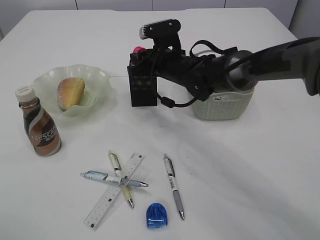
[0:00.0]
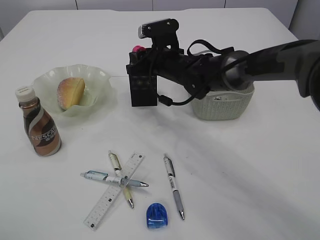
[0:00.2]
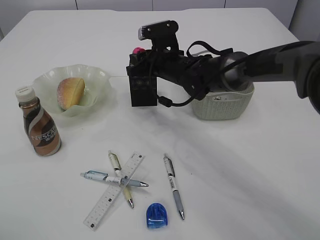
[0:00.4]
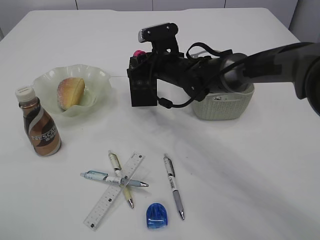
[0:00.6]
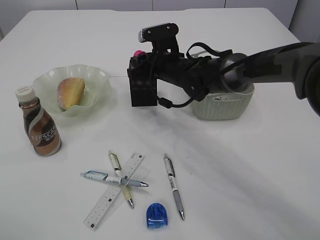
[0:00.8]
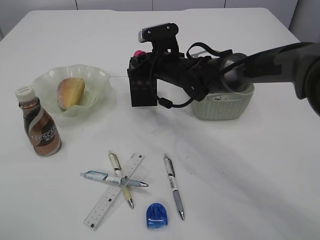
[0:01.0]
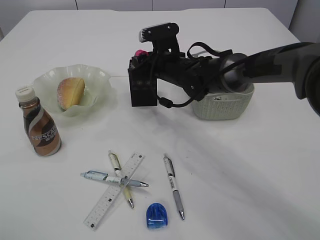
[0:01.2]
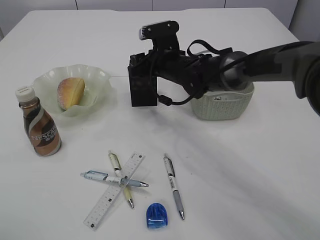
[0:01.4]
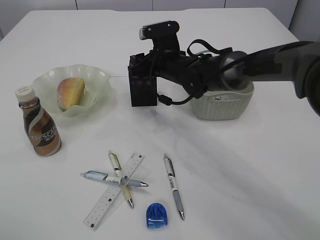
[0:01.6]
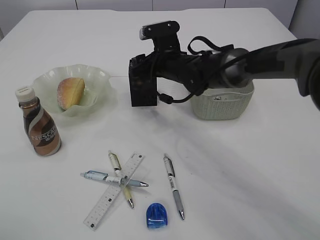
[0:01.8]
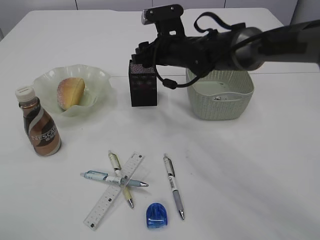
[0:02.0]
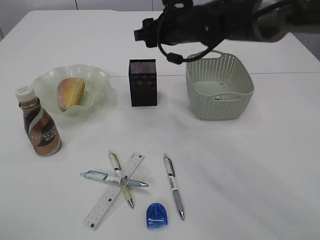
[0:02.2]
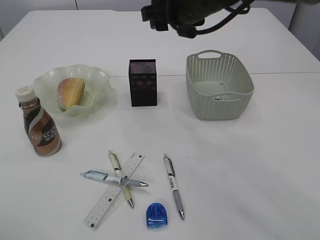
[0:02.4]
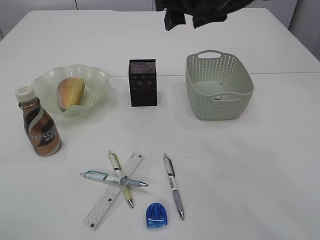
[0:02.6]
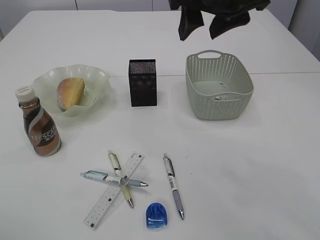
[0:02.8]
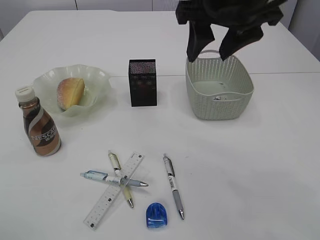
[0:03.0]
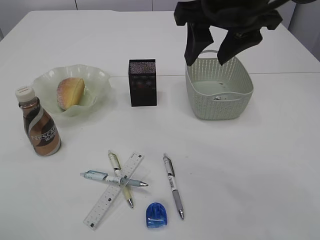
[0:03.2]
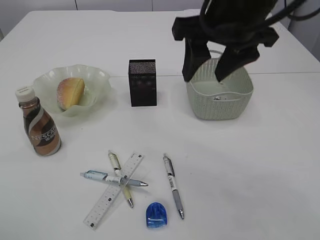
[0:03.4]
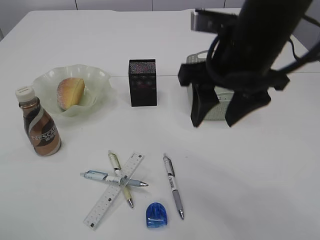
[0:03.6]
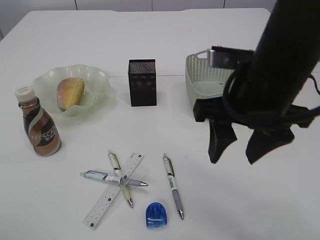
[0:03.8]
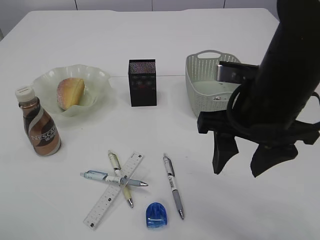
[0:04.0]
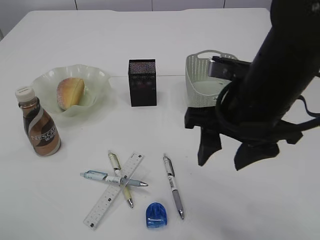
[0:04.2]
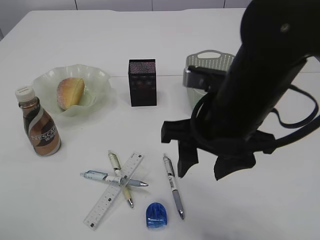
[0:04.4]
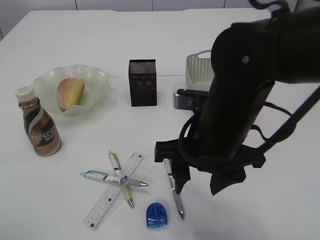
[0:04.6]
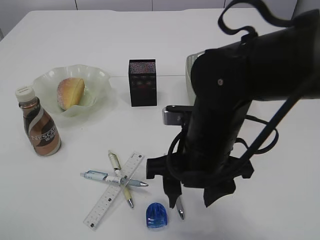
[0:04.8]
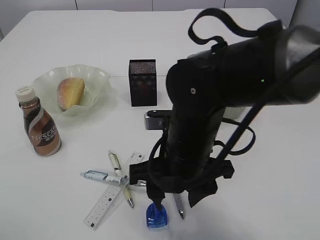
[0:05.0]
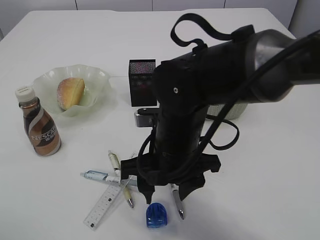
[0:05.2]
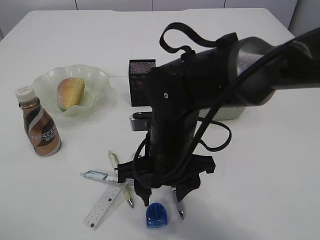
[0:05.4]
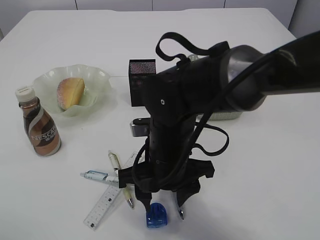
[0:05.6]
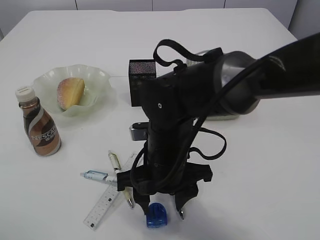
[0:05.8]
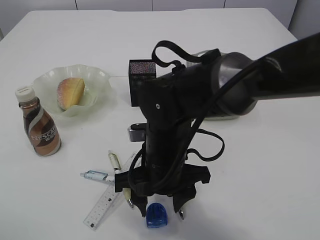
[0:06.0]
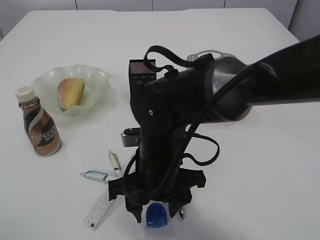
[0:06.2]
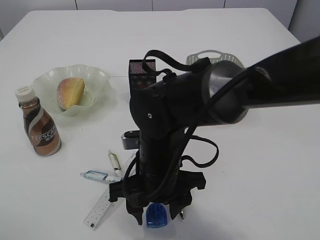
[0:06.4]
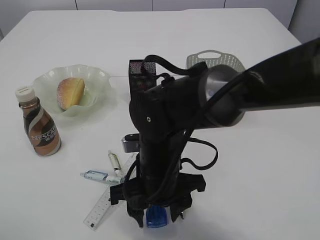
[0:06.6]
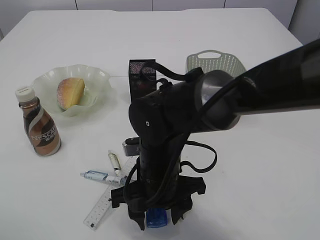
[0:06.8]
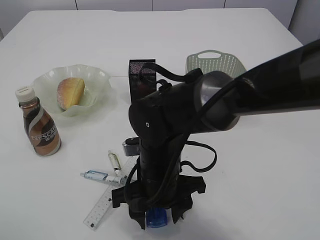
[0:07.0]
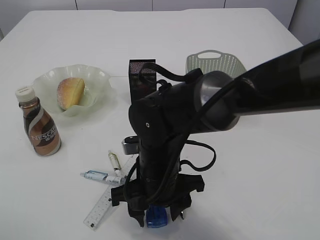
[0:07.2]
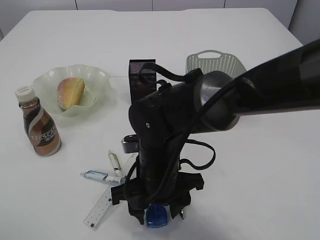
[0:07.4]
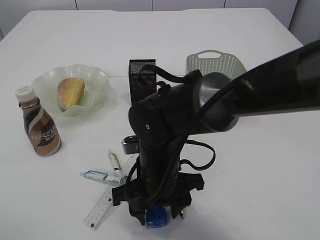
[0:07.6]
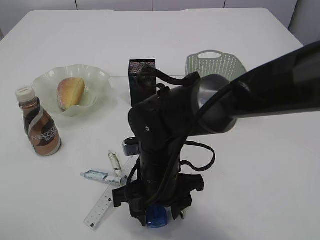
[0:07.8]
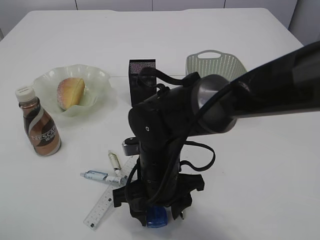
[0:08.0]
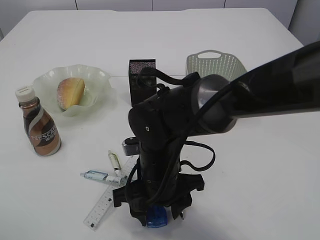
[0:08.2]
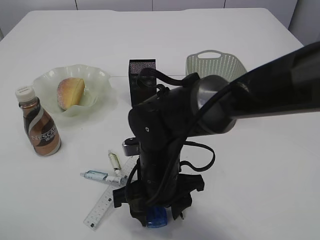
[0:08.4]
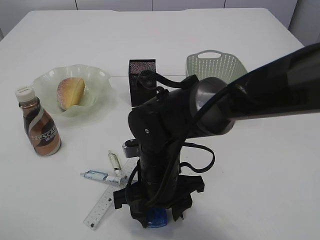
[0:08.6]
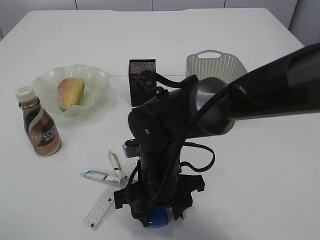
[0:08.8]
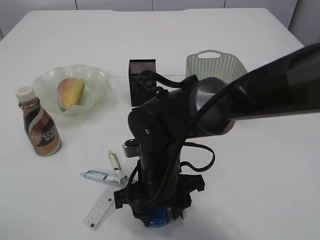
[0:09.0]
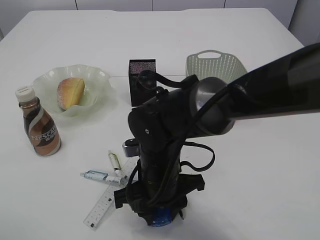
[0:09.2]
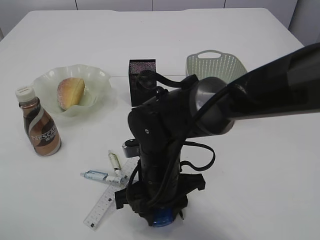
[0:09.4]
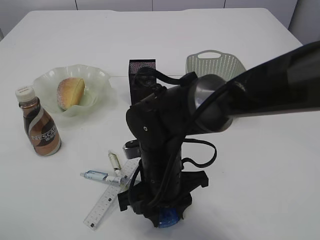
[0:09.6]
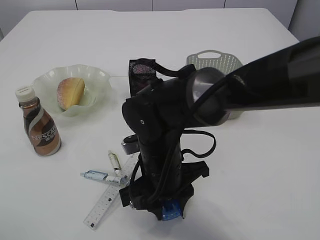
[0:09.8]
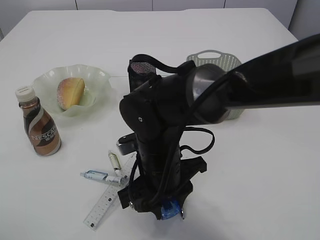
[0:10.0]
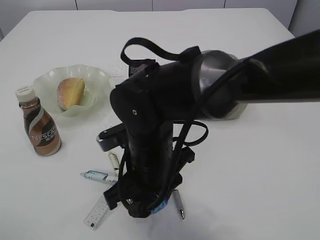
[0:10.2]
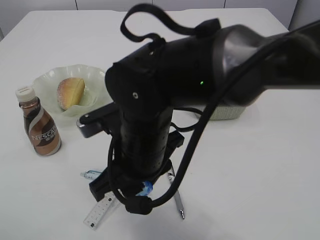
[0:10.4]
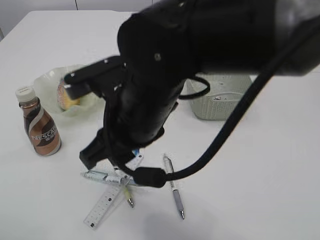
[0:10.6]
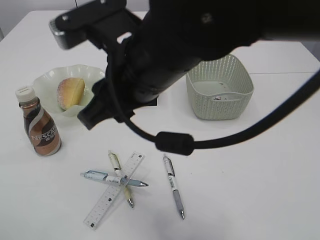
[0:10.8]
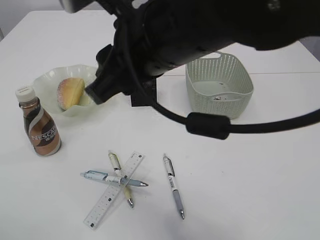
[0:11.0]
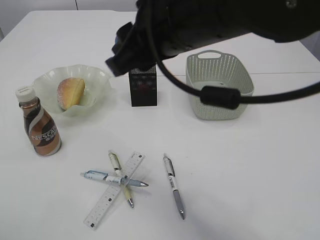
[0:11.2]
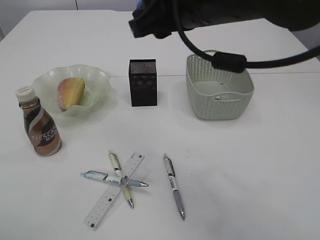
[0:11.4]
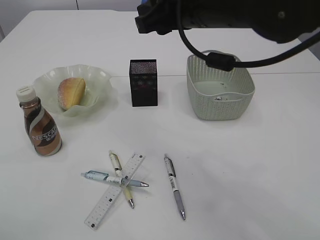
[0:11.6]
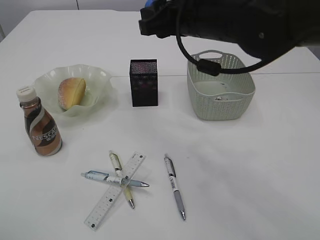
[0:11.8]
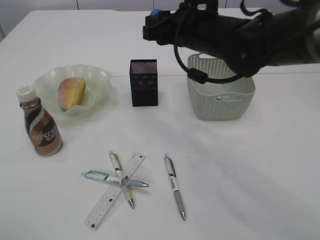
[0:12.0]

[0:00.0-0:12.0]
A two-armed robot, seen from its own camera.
Step, 0:00.0 to 0:02.2: Place the red pencil sharpener into the pen holder.
Step, 0:02.4 to 0:10.4: Pick up the blue pencil sharpener.
0:00.0 to 0:01.6: Both grippers stay about where they are.
0:01.6 to 0:03.0: The right gripper shifts approximately 25 cm upward and backward.
0:03.0 to 0:04.4: The right gripper goes approximately 15 cm downward and backward.
0:04.4 to 0:06.0: The right gripper travels downward and to the left by about 15 cm.
0:06.0 to 0:07.6: The grippers stay close to where they were, moving slightly.
0:07.6 to 0:09.0: Neither gripper changes place.
0:09.0 to 0:10.4: The right gripper moves upward, about 10 cm.
0:10.4 to 0:12.0: The right gripper shifts approximately 20 cm forward, to the right and upward.

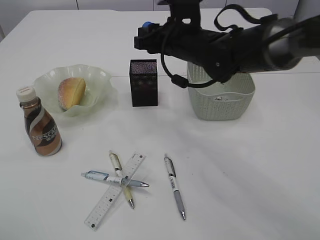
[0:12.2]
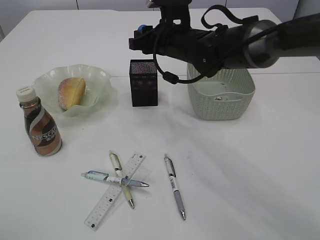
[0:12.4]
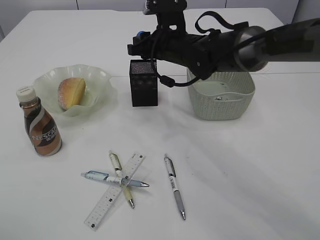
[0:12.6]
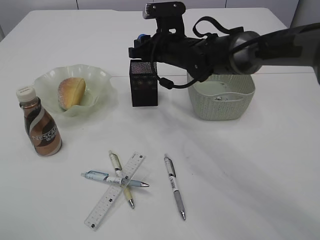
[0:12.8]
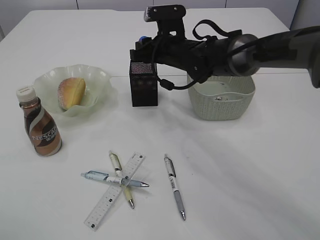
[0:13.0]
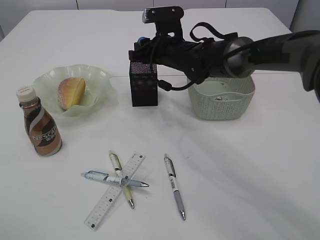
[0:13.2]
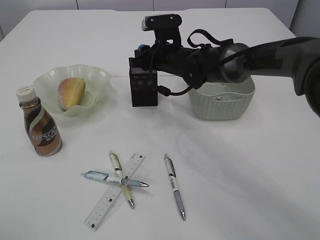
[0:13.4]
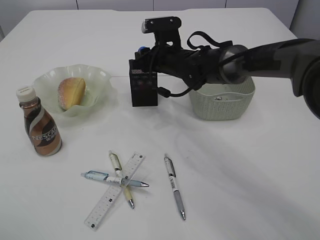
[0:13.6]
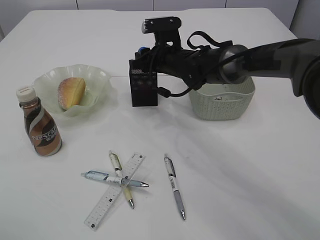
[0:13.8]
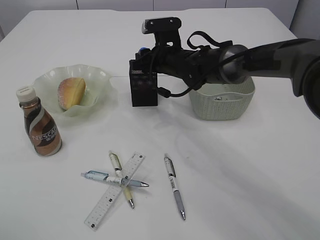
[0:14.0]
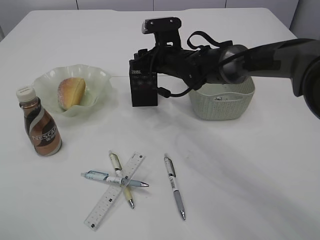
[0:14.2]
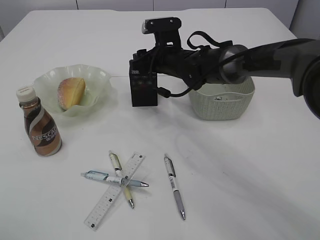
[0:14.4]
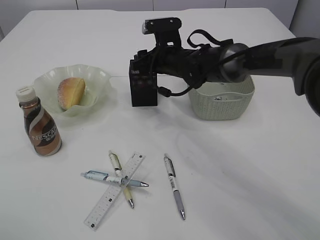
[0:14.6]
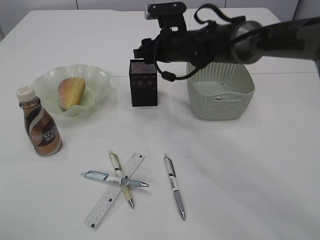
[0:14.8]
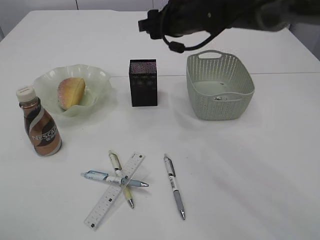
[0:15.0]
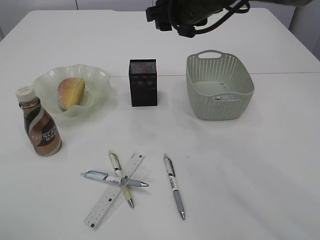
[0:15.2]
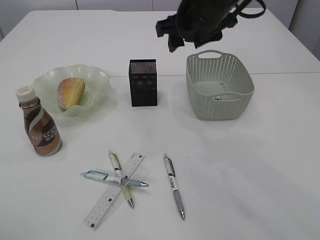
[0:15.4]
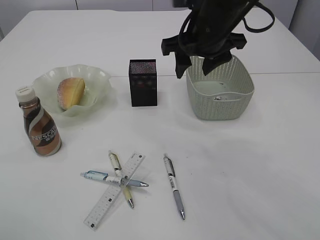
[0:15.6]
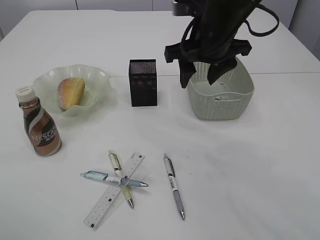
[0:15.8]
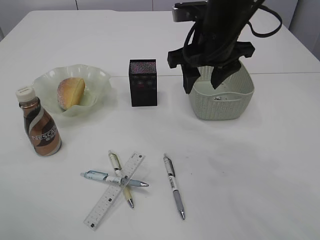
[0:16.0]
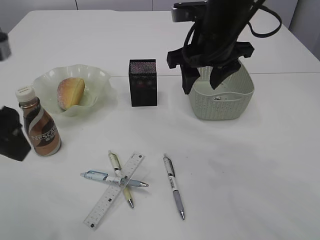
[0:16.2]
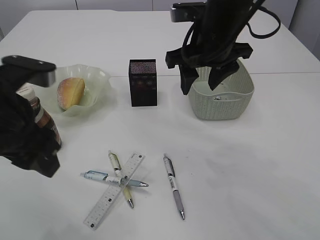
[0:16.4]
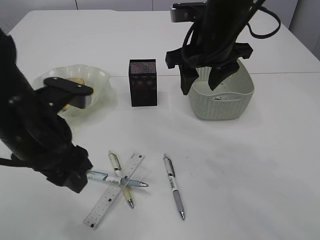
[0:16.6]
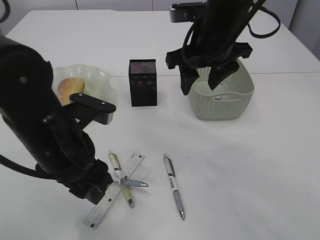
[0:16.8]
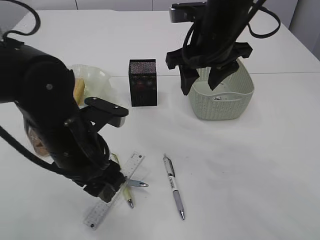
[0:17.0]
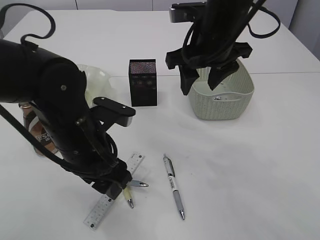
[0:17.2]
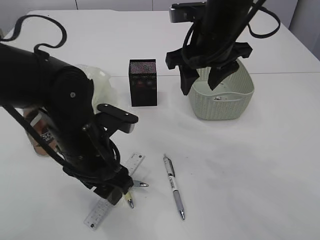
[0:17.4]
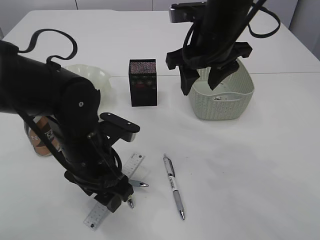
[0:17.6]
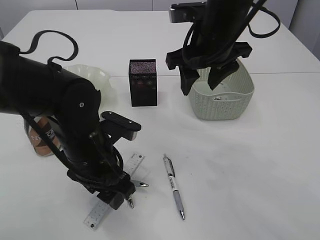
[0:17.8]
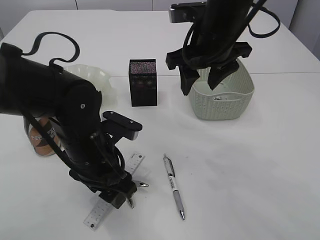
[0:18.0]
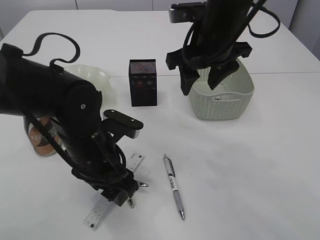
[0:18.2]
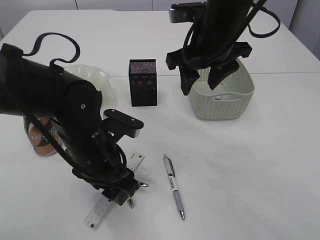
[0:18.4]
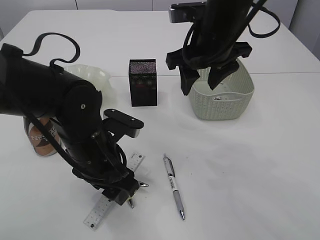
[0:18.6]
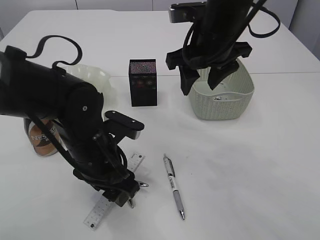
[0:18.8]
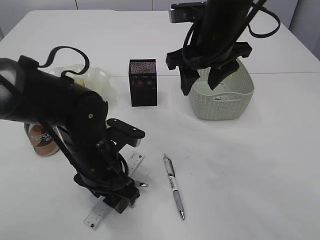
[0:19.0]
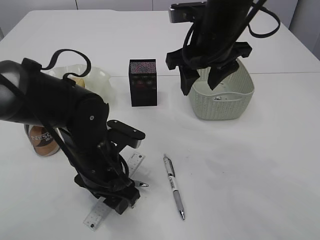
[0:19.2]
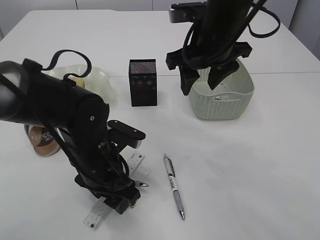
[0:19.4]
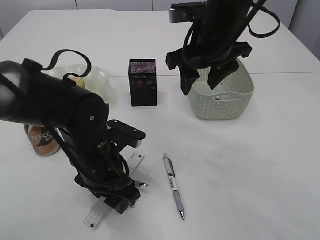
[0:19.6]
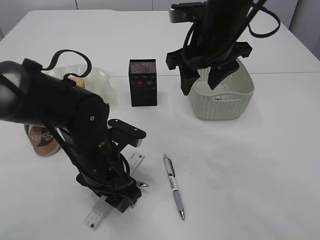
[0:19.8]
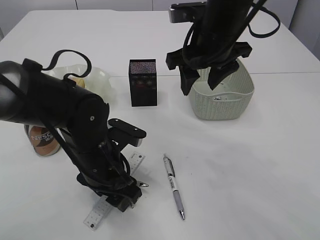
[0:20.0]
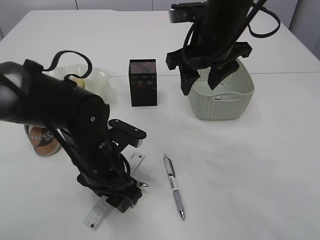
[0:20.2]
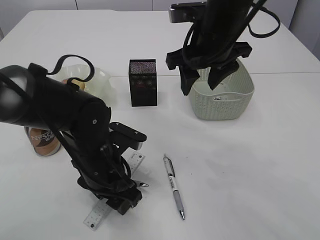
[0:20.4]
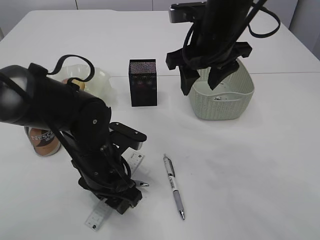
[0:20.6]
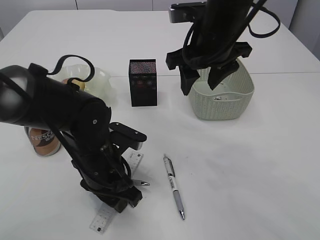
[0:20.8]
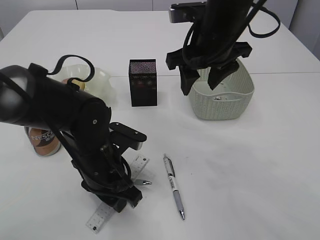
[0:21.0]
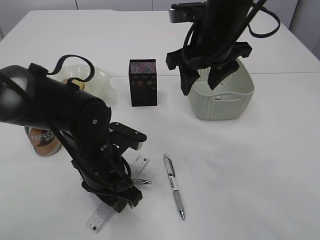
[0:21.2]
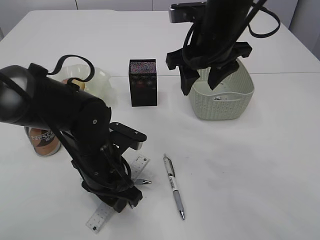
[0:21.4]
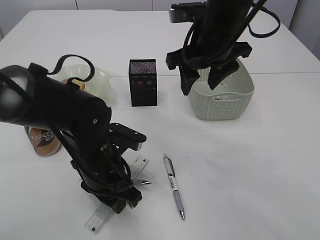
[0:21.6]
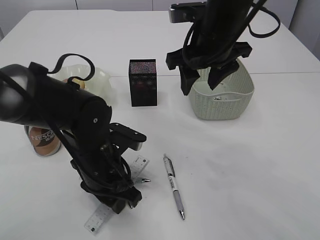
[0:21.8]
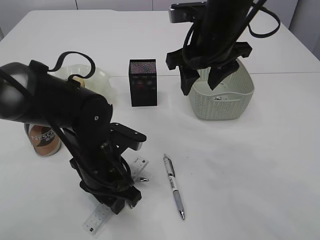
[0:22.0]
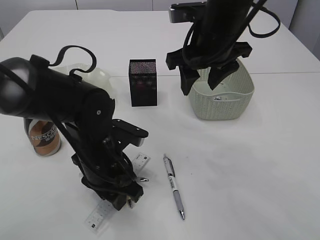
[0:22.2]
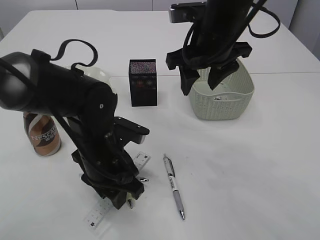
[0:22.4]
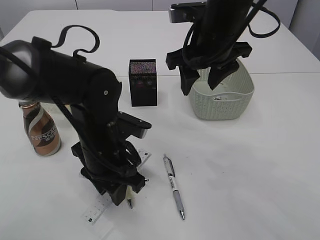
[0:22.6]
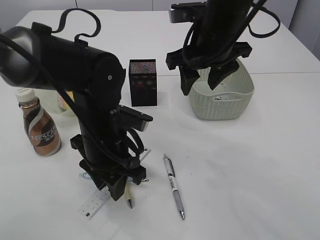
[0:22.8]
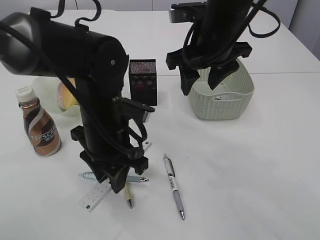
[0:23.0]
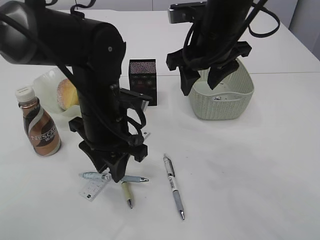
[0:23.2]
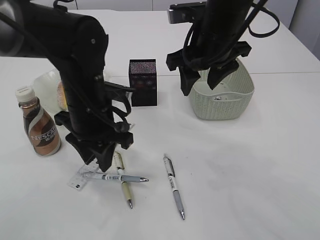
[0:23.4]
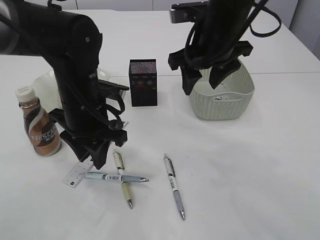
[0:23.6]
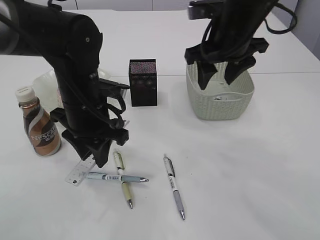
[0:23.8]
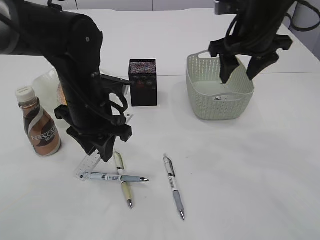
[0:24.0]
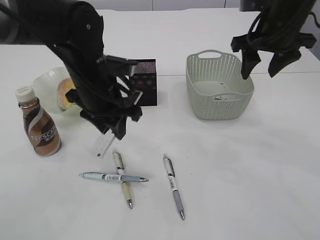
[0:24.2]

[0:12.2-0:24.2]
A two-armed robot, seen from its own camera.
Step, 0:12.2 to 0:15.0: Place the blue pencil sharpener into the pen holder.
Step, 0:15.2 to 0:23.0: pick up the ruler.
0:12.2 to 0:13.8: The right gripper heads downward and forward, covering some 10 cm.
0:13.8 to 0:15.2: The right gripper goes some 15 cm upward and backward.
0:15.2 to 0:16.6: The left gripper moves to the right and downward, roughly 15 cm; the right gripper heads backward, covering some 5 cm.
0:16.6 to 0:18.2: The left gripper goes about 10 cm downward and to the right.
0:18.2 to 0:19.8: The grippers stay close to where they were, moving slightly.
0:19.8 to 0:21.2: The left gripper closes its fingers.
0:21.2 to 0:22.6: The grippers stay close to where they were, moving slightly.
0:22.6 to 0:24.2: The left gripper is displaced forward and upward by about 10 cm; the right gripper moves to the right, approximately 10 cm.
